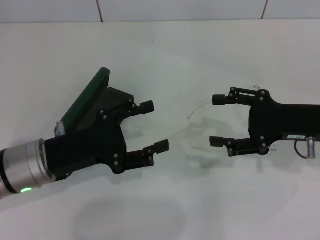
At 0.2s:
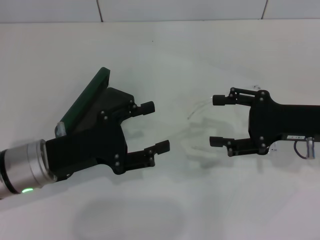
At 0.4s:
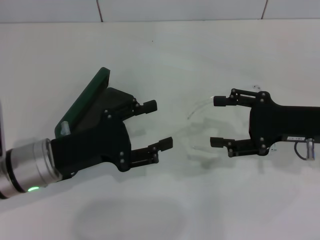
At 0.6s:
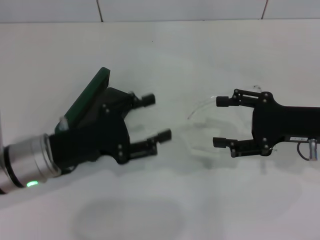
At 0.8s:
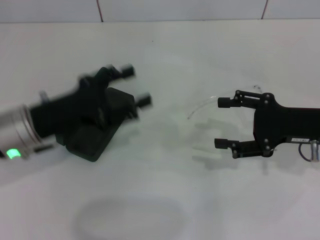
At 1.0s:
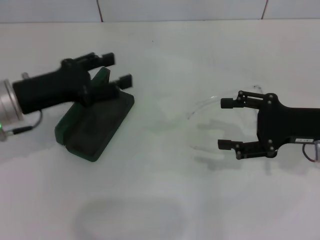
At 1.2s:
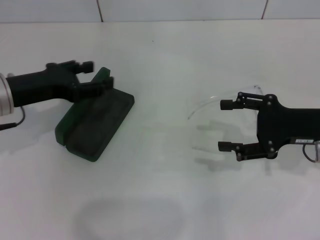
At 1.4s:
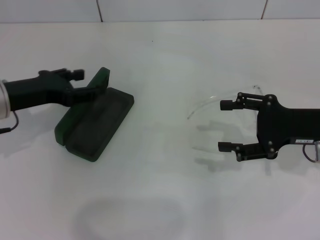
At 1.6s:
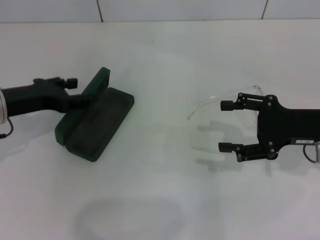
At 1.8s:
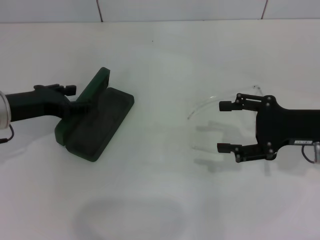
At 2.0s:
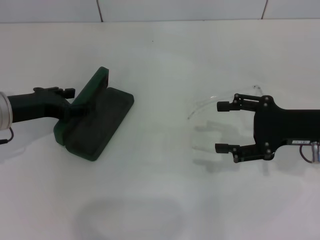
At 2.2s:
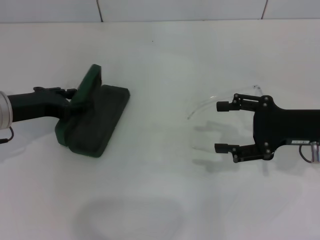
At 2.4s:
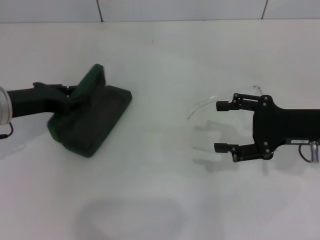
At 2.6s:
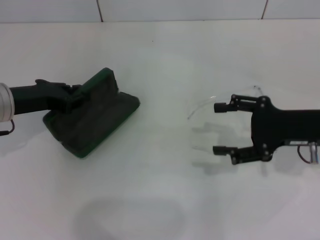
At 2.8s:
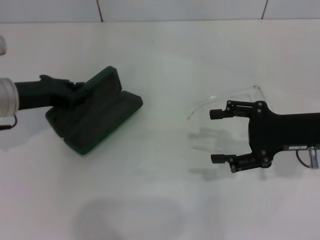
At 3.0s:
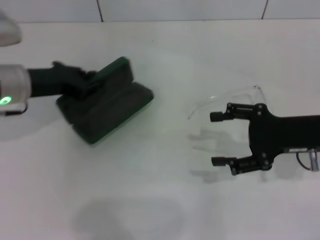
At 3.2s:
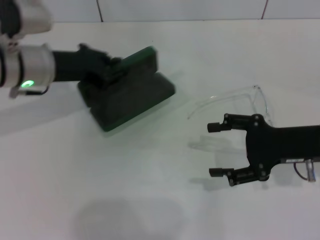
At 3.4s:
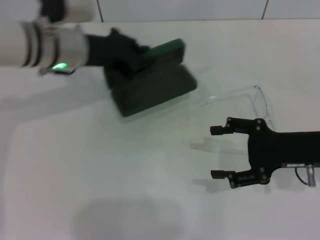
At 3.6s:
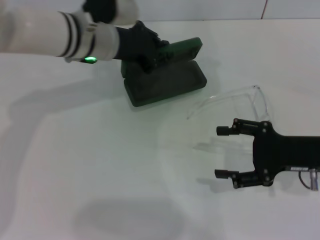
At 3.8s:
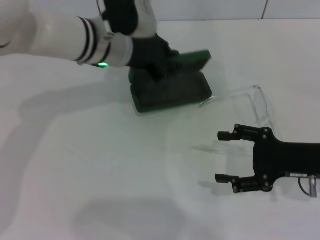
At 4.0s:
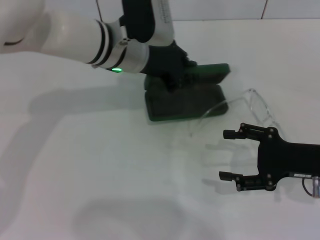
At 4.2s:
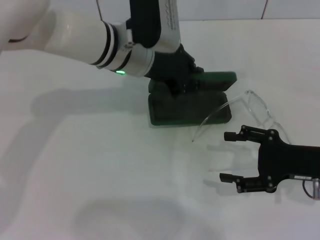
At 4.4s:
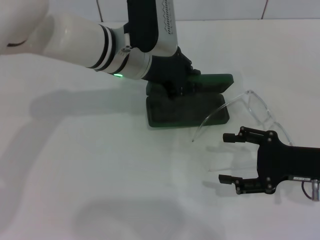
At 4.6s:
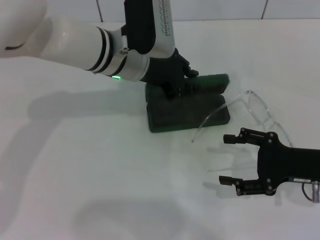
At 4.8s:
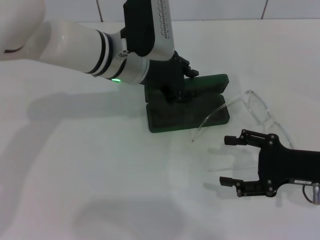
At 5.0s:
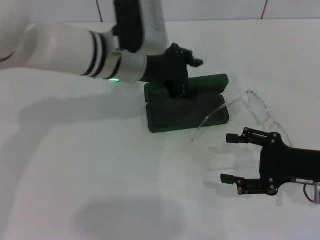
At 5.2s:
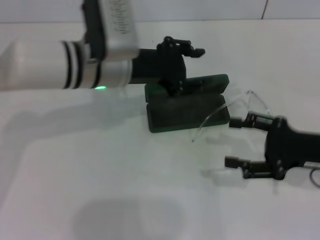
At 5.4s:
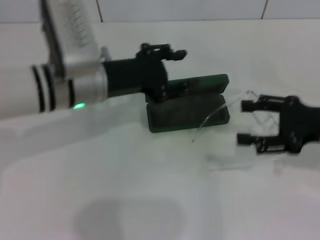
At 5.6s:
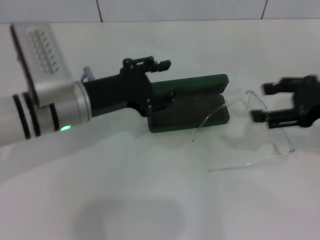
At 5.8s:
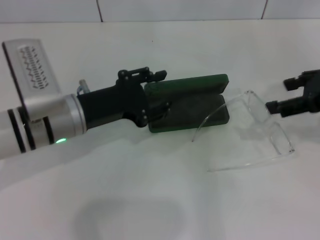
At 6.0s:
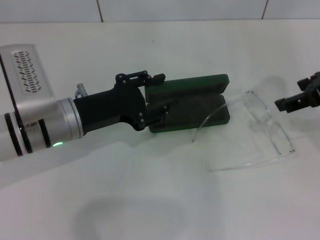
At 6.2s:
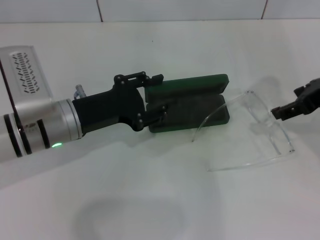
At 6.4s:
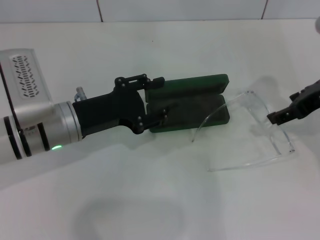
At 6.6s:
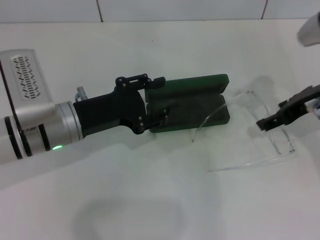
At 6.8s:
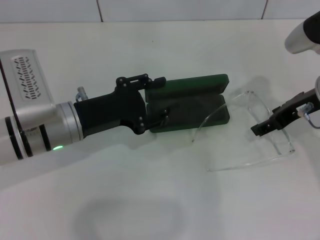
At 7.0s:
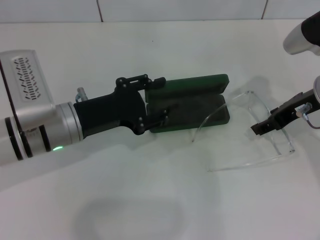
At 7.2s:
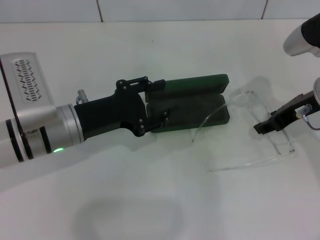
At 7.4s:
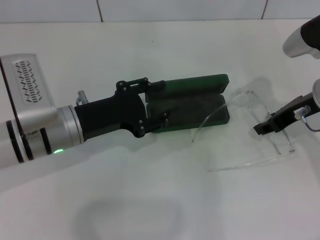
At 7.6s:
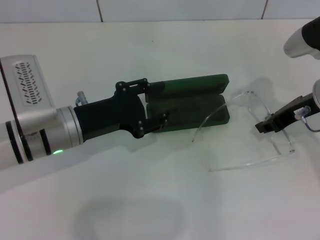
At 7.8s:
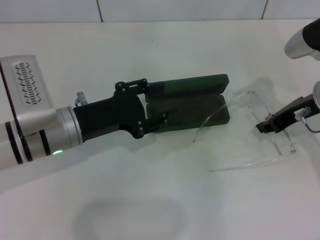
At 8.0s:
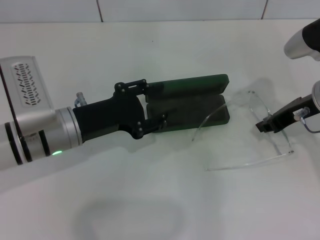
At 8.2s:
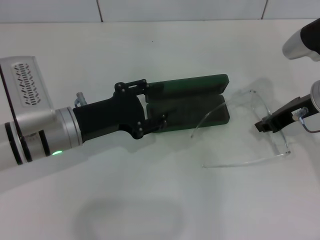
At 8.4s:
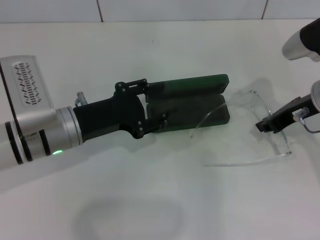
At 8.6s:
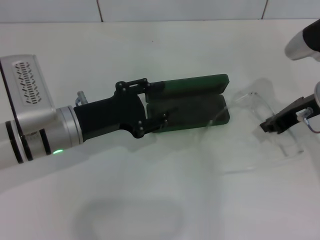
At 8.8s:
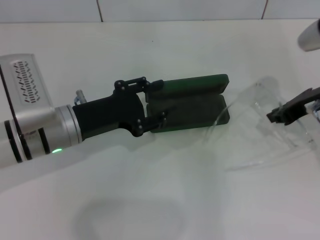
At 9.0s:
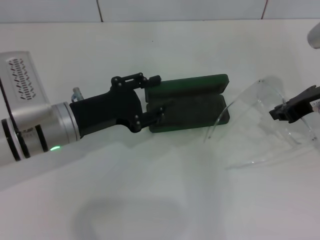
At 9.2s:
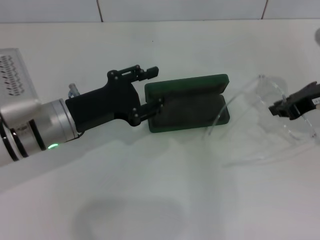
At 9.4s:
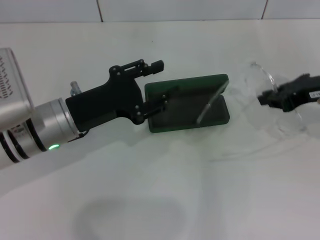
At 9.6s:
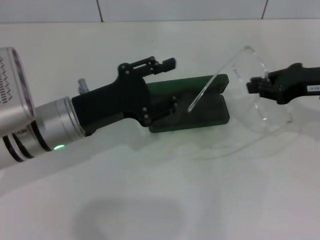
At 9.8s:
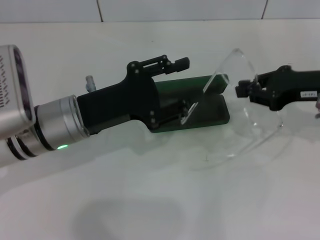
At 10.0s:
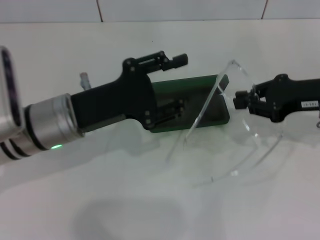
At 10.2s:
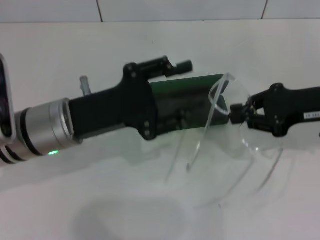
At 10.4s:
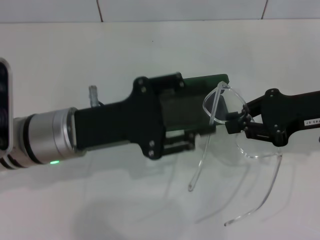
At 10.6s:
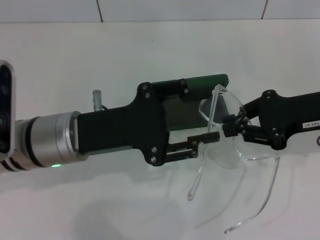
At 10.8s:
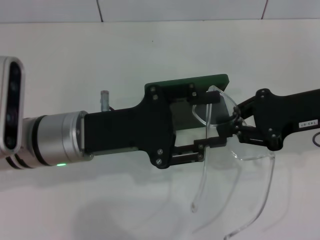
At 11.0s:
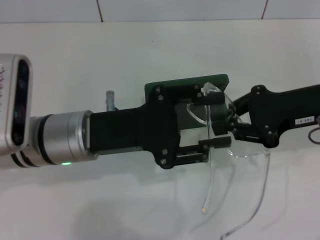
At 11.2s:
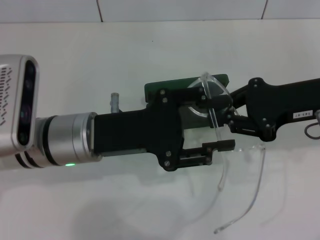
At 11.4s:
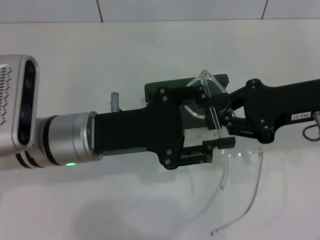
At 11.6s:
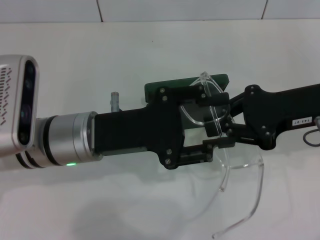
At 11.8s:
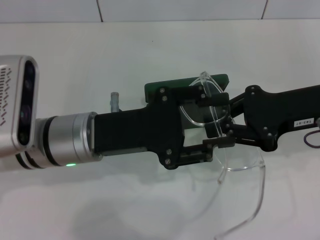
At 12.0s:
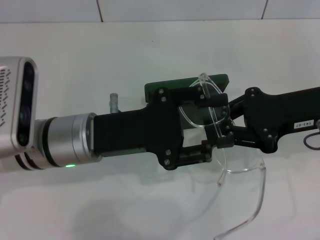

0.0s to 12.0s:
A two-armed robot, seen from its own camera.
Step, 0.0s to 2.4s: Grab the glasses case with your left hand.
Step, 2.6s to 4.4s: Place the glasses case in the center of the table with your left hand.
Step, 4.8s to 8.4s: Grab the eyeglass frame with your right hand.
0.0s to 1.6s: The left gripper shifts roughly 10 cm forward and to the left.
1.6s to 3.0s: The left gripper closes up.
3.0s to 4.4s: The left gripper travels to the right by about 15 cm; the right gripper changes place by some 5 cm.
4.4s to 6.0s: The left gripper shifts approximately 15 cm to the left, backward and downward, and opens its fingers; the right gripper goes approximately 15 cm upward.
6.0s to 7.6s: The right gripper heads downward, covering some 10 cm, and closes its fingers.
7.6s to 9.0s: The right gripper closes up.
9.0s to 10.4s: The left gripper moves roughly 5 cm.
10.4s to 12.0s: The grippers move only a little.

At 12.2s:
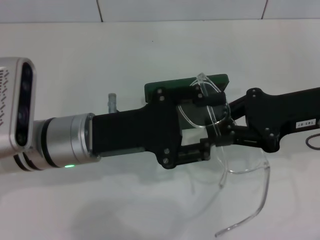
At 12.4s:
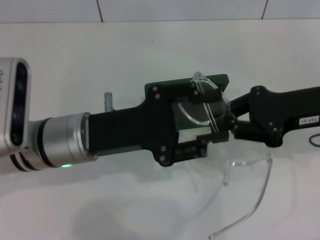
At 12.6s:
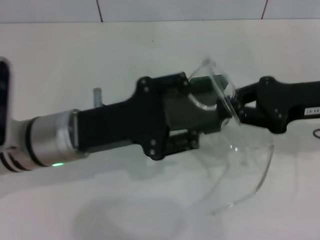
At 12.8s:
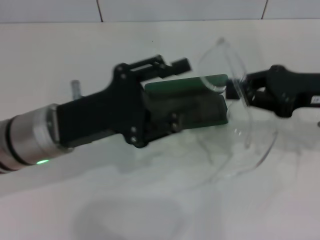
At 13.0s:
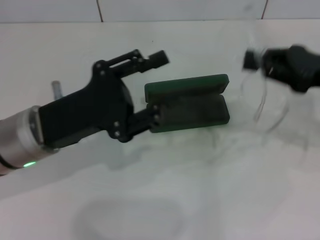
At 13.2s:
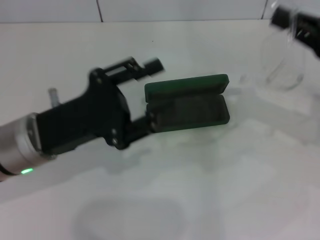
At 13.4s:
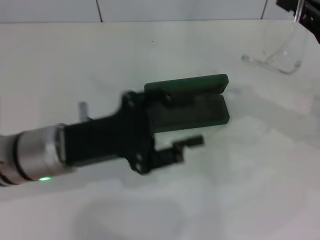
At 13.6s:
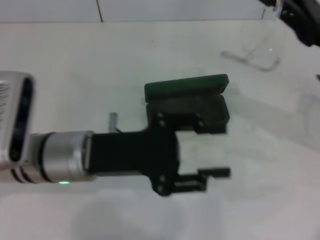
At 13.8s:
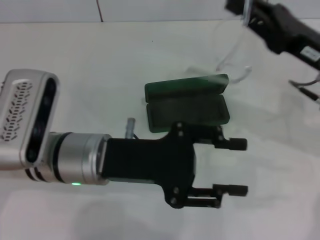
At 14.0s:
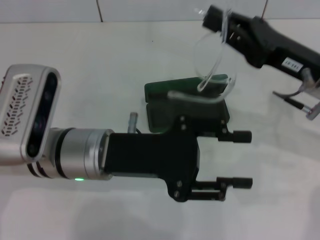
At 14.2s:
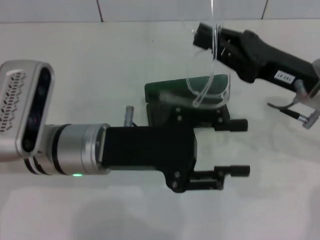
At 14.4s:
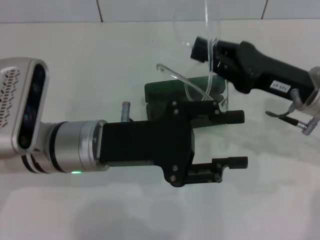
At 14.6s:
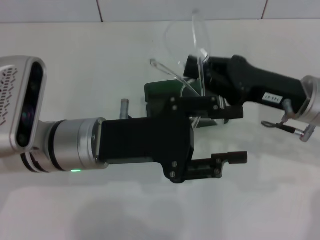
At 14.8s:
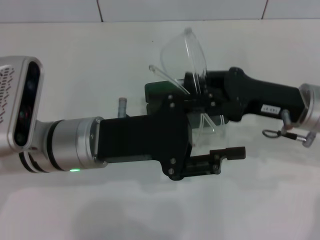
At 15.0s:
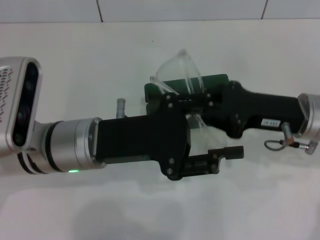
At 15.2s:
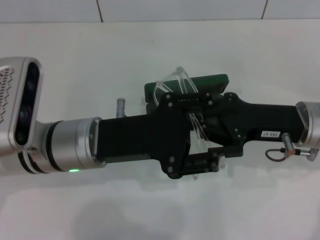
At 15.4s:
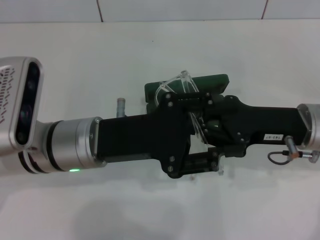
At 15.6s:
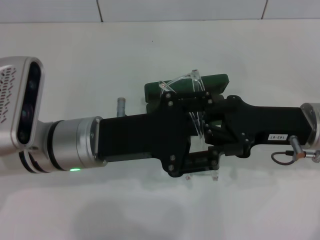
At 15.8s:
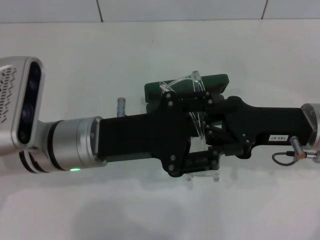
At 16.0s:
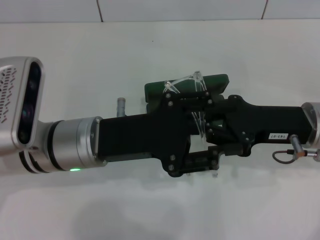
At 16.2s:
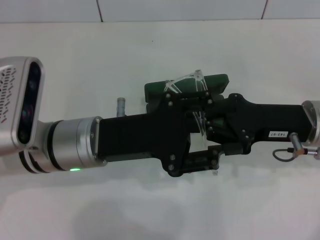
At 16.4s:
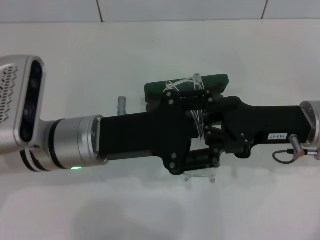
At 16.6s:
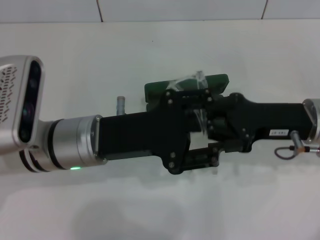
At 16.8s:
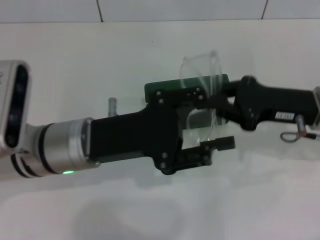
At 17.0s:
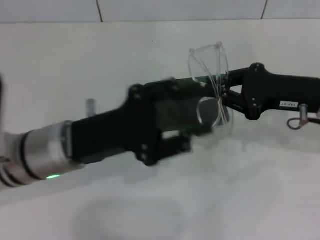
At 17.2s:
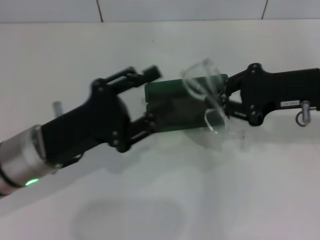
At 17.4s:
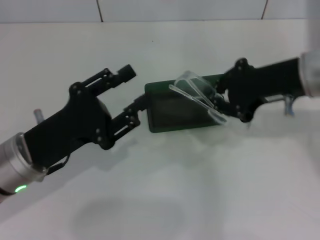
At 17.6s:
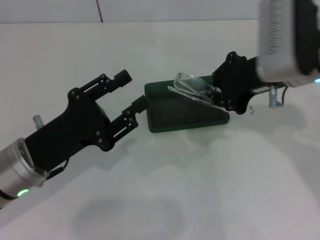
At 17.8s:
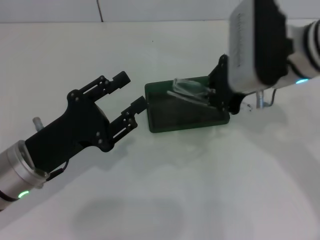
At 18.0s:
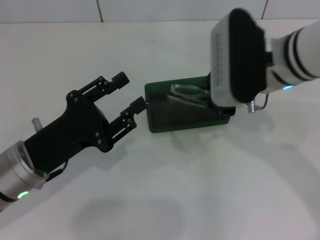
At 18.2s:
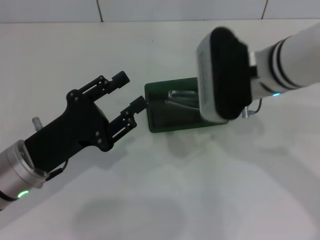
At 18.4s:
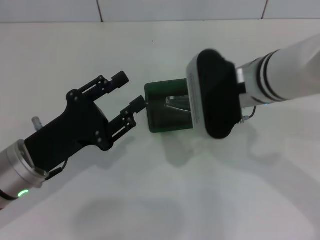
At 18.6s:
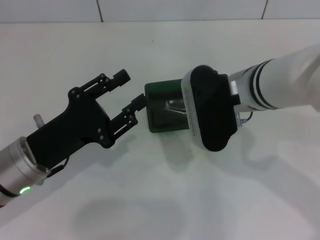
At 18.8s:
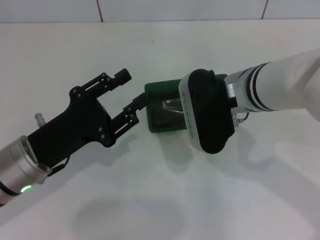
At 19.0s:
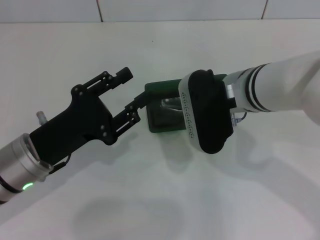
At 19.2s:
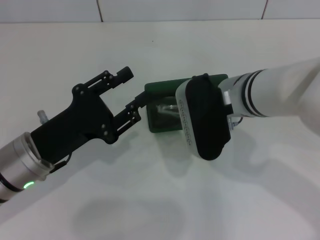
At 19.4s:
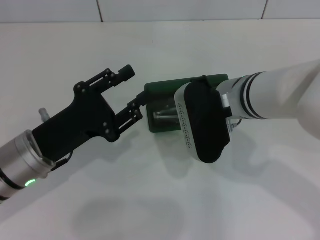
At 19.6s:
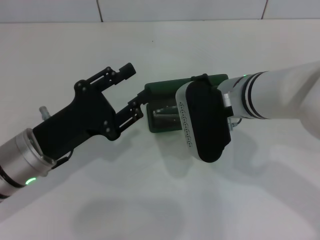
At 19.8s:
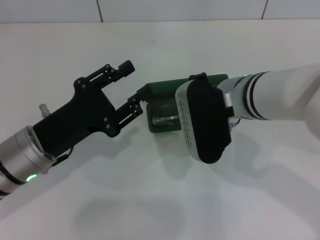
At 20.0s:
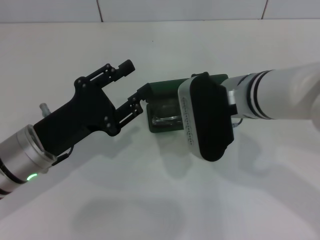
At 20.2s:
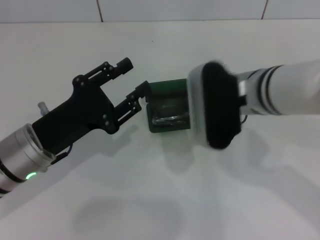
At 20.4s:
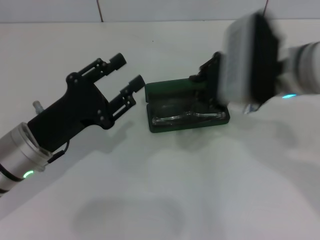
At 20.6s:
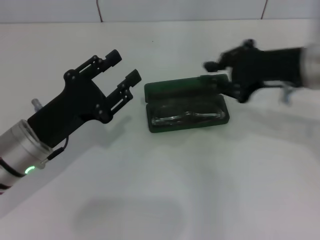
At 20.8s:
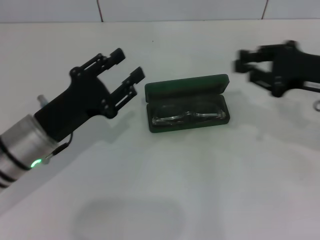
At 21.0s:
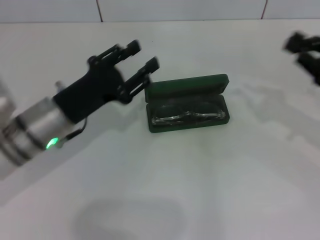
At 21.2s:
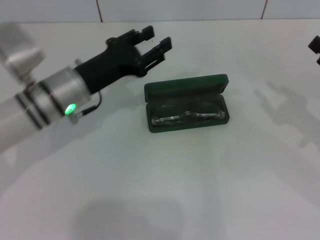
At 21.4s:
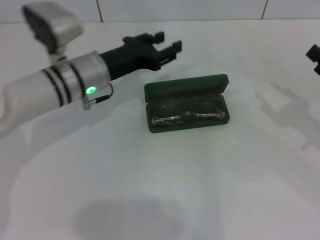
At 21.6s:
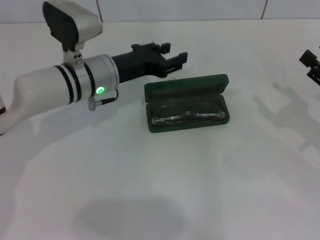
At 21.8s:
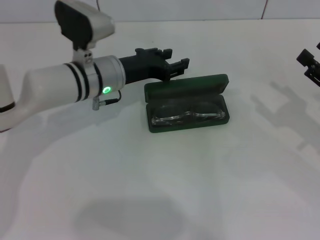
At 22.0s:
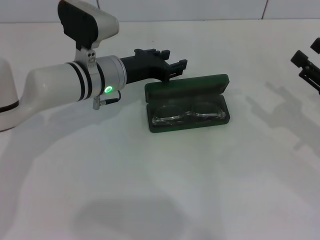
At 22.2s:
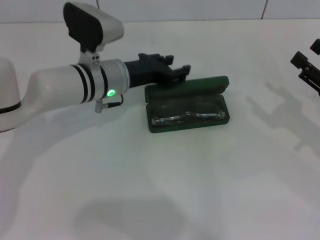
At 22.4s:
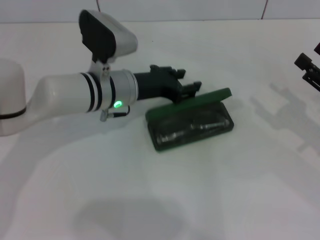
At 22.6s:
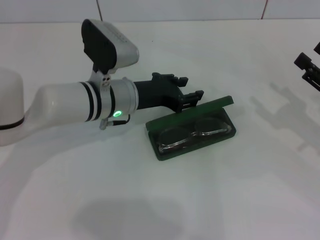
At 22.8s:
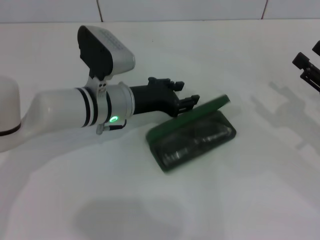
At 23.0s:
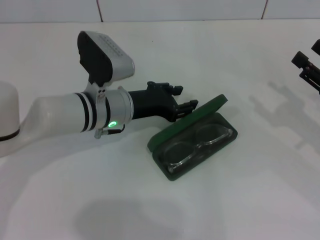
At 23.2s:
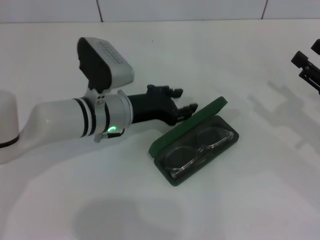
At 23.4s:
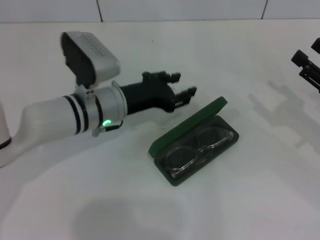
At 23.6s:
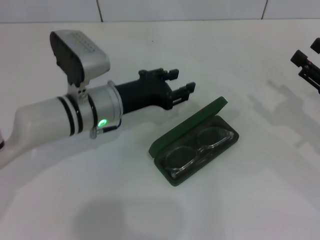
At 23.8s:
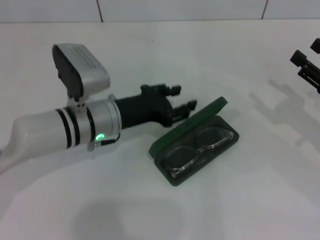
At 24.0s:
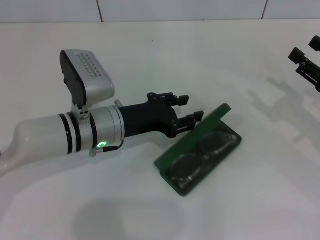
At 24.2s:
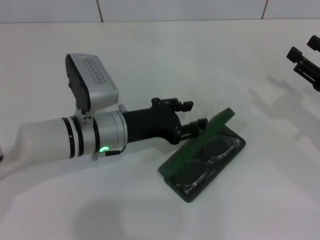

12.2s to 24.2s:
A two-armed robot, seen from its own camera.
Step, 12.2s to 15.6s: Fold the frame with your left hand.
Step, 15.8s to 19.8s: Put the glasses into the case with your right hand.
13.8s to 15.2s: The right gripper changes place by about 5 cm.
15.2s to 16.6s: Neither gripper changes place.
16.6s to 18.2s: The right gripper shifts some 10 cm to the left and upward. The left gripper moves to the left, roughly 10 cm.
19.8s to 21.2s: The left gripper travels forward by some 10 cm. Meanwhile the right gripper moves to the right, approximately 25 cm.
21.2s to 22.6s: The right gripper opens up, while the left gripper goes approximately 5 cm to the right.
22.6s to 24.2s: The left gripper moves some 5 cm.
